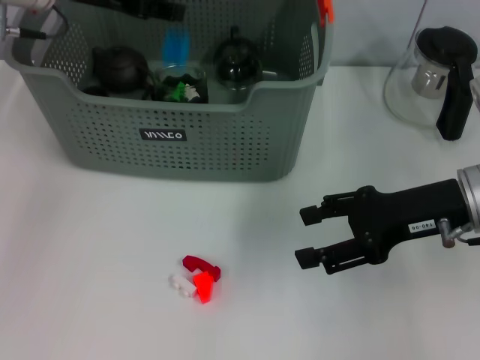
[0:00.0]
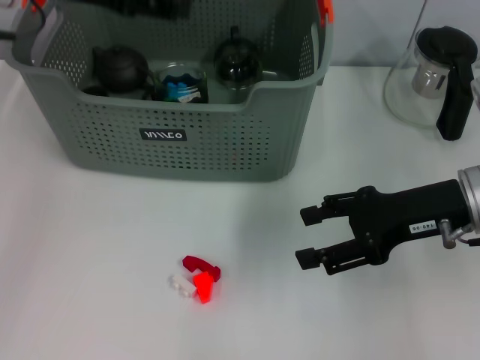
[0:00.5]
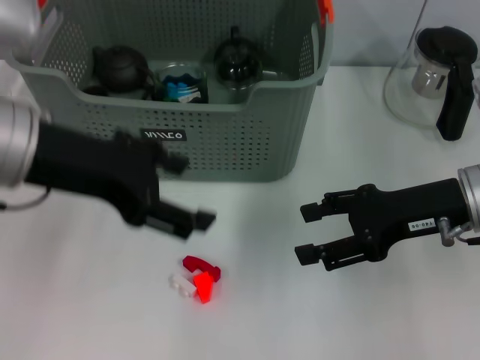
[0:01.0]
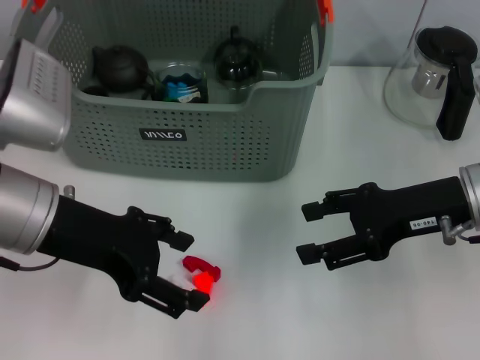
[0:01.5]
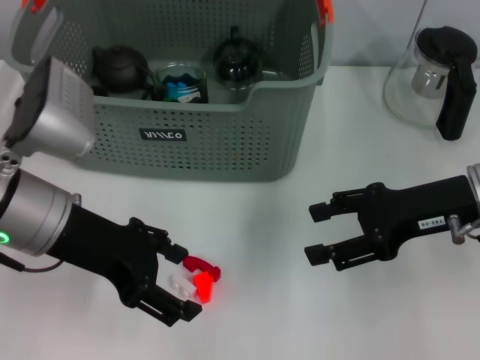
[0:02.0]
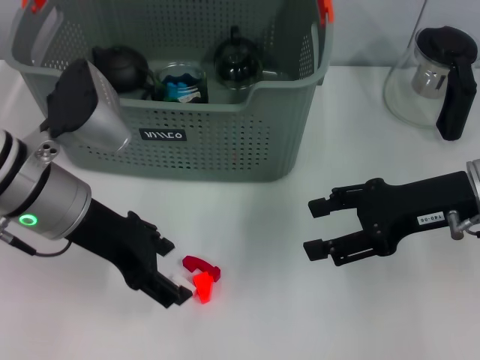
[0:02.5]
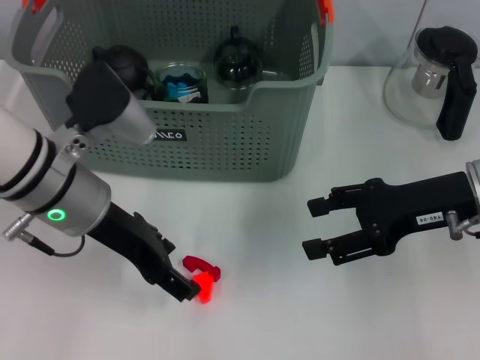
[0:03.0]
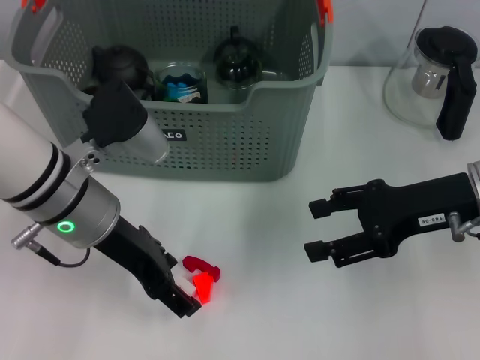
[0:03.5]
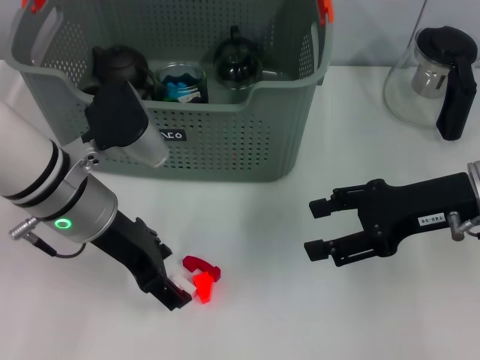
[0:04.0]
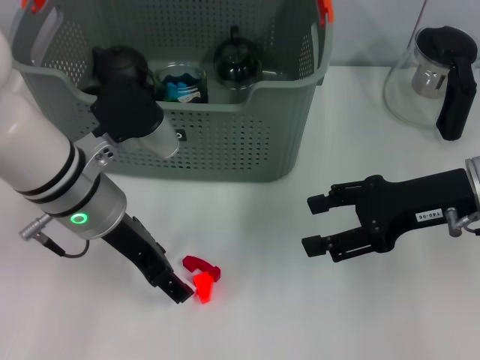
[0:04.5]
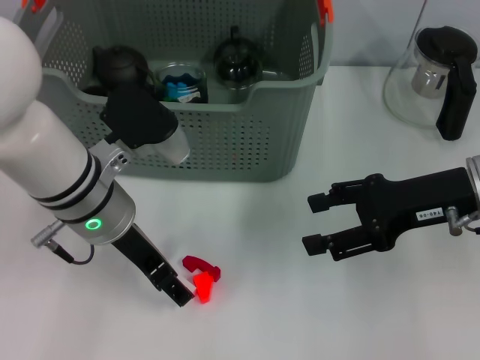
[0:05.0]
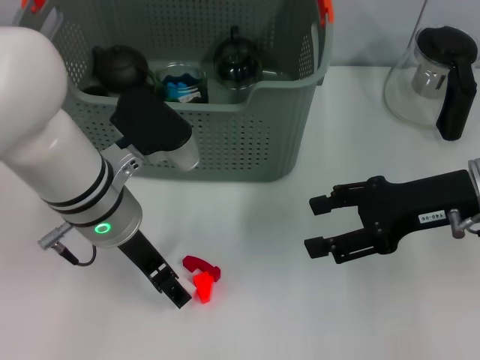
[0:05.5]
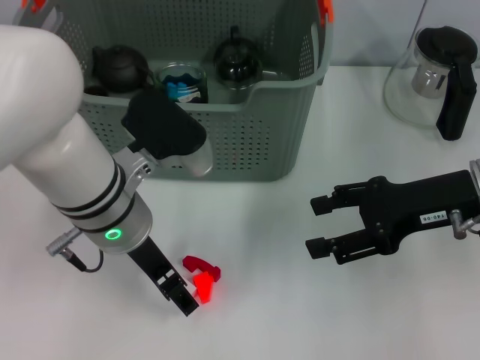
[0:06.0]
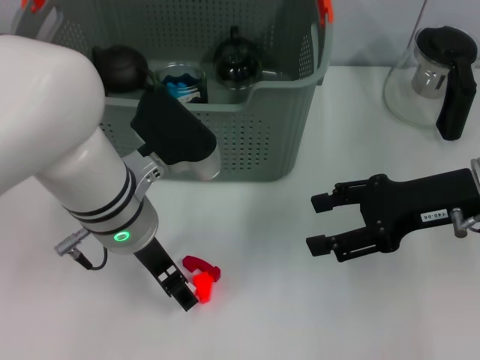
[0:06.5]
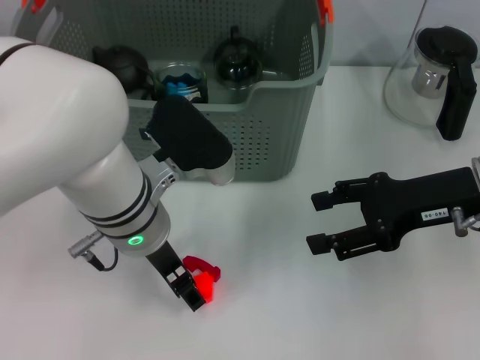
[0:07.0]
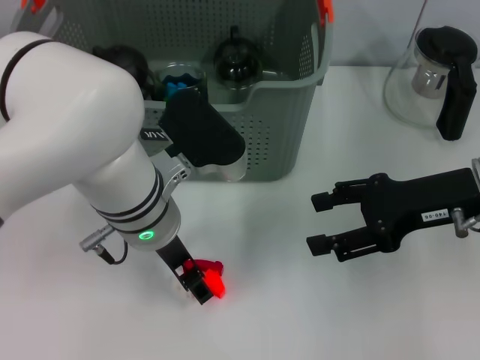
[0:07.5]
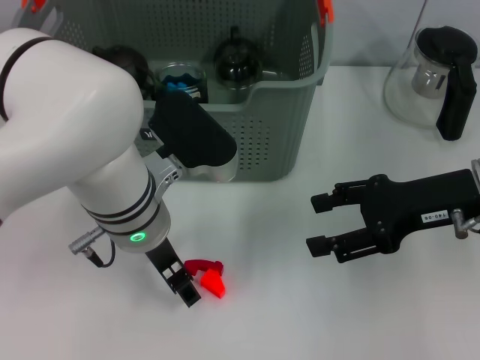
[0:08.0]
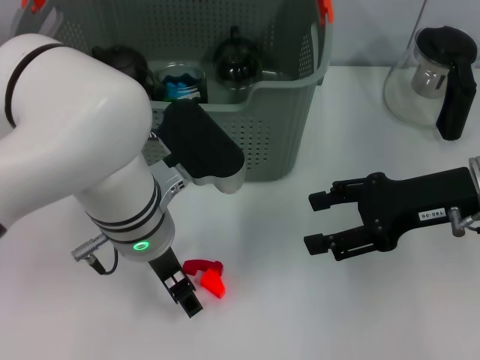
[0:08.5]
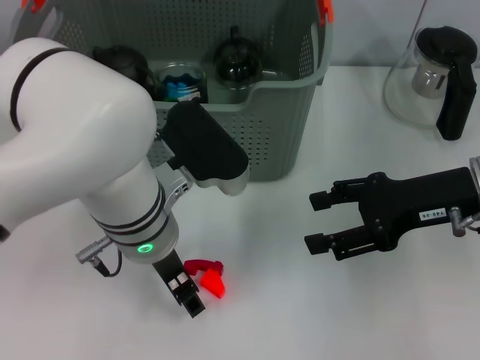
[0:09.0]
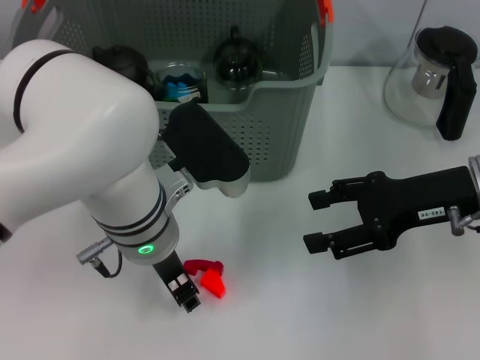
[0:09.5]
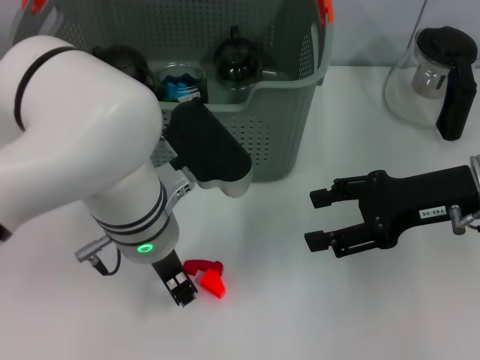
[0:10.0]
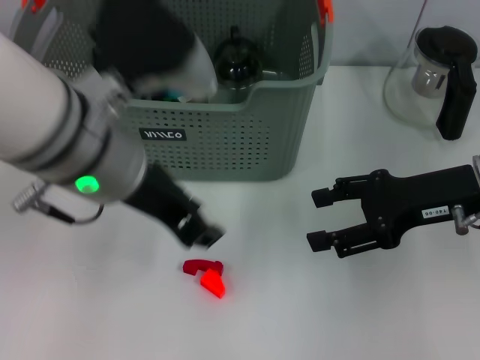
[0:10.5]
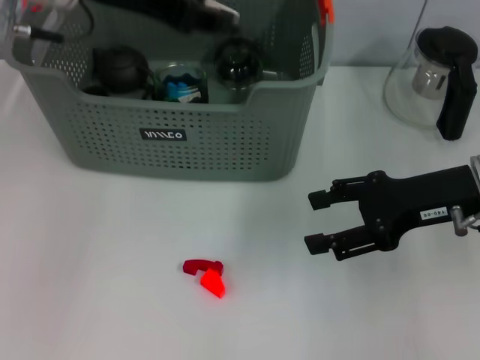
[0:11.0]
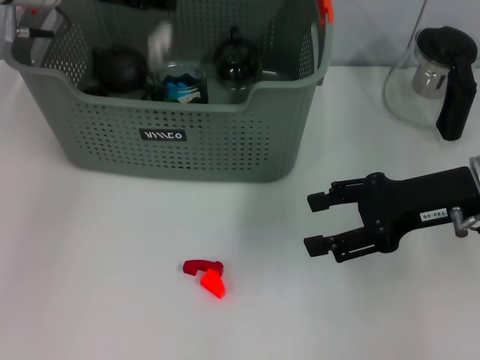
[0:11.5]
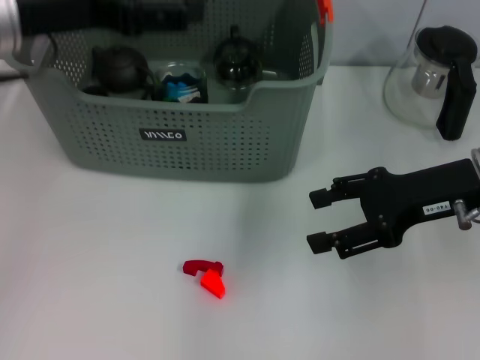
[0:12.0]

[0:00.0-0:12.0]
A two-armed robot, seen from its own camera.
Task of the whole recording: pick up the teacup on the table and place it into the storage bin, pick up the block on the table and place it into the storage bin.
Step, 0:00.5 to 0:09.5: Grasp the white block with left gripper.
Step, 0:10.0 to 0:11.5: Place the white block in the storage box with left gripper.
0:00.0 to 0:02.0: The left gripper shifts about 15 cm backward and downward, and opens.
0:02.0 to 0:04.0: The left gripper ends up about 5 cm from where it was.
0:04.0 to 0:06.0: There are only small adjustments of the grippers.
0:06.0 to 0:08.0: The grippers stay close to where they were, moving slightly.
0:08.0 to 0:10.0: The left gripper closes its fingers.
0:10.0 to 0:12.0: The left gripper travels to the left and upward by about 20 cm, and opens its fingers.

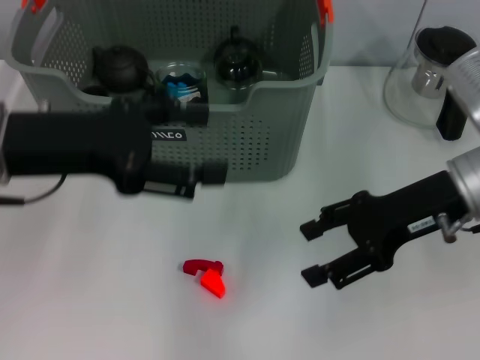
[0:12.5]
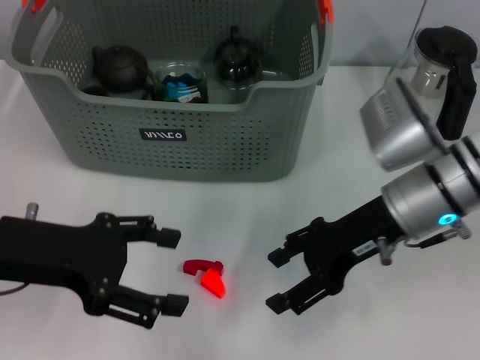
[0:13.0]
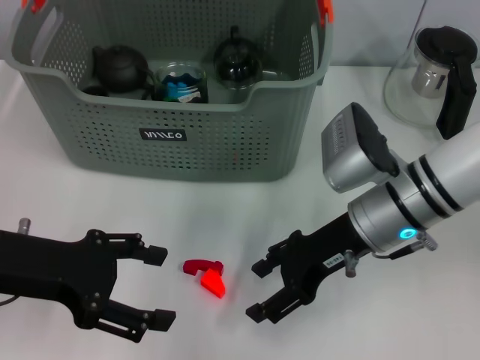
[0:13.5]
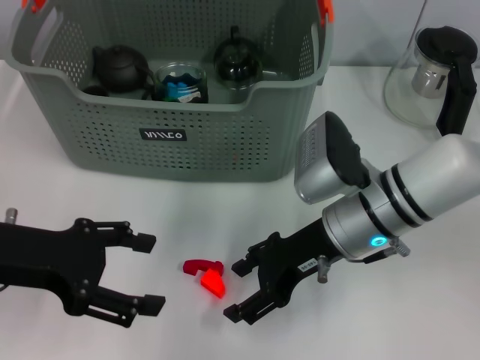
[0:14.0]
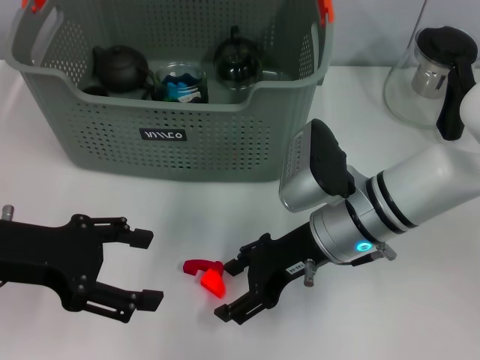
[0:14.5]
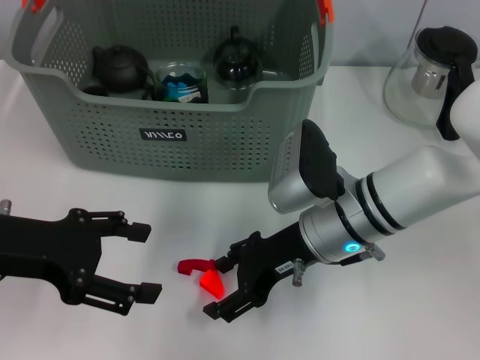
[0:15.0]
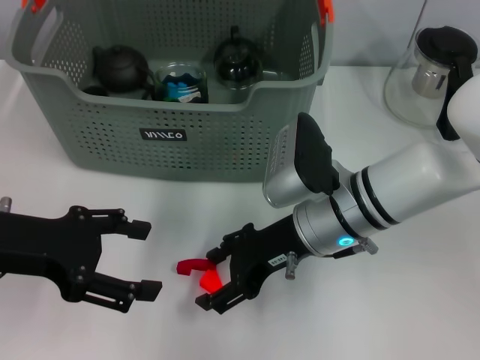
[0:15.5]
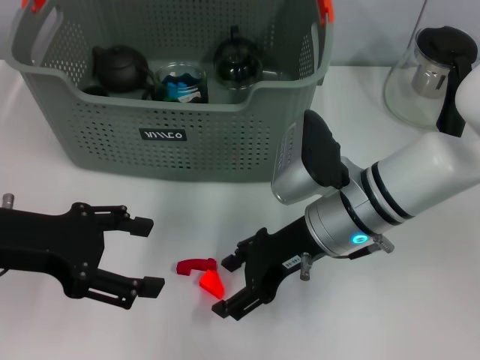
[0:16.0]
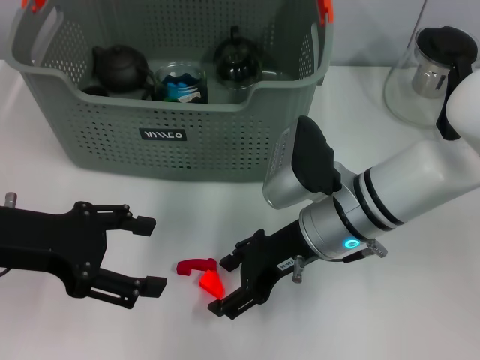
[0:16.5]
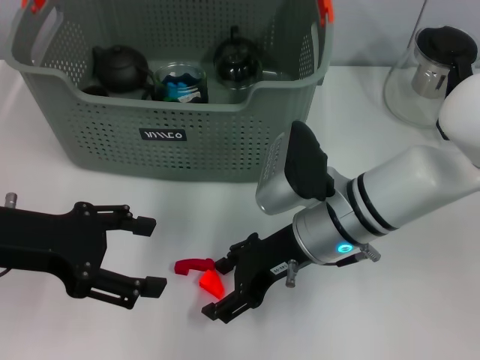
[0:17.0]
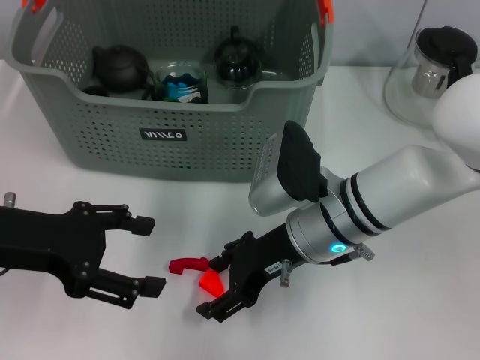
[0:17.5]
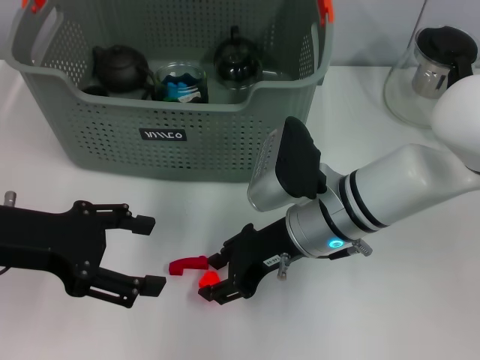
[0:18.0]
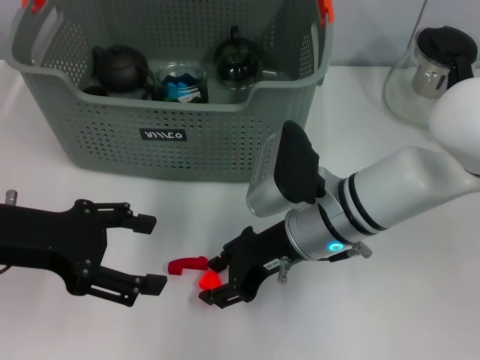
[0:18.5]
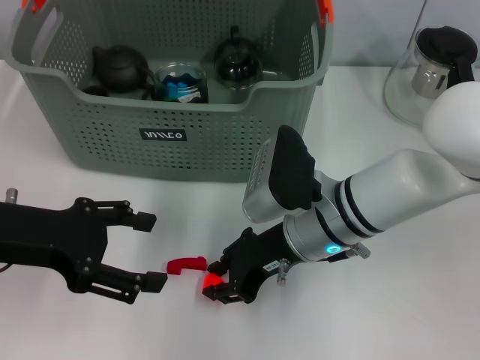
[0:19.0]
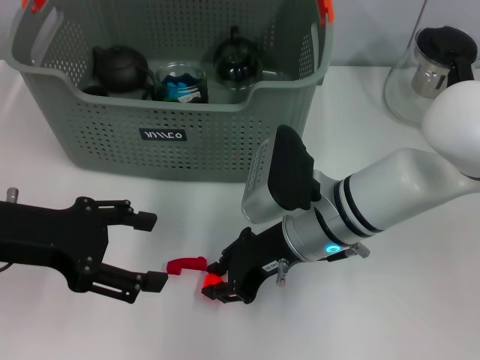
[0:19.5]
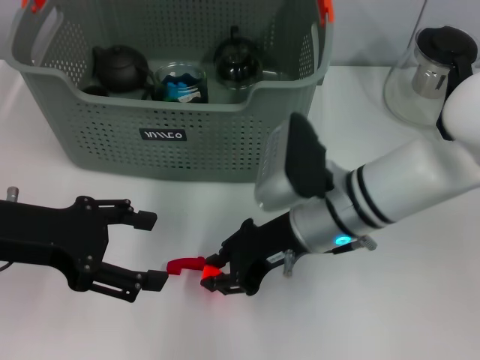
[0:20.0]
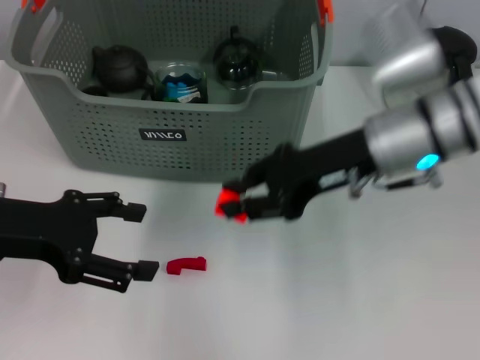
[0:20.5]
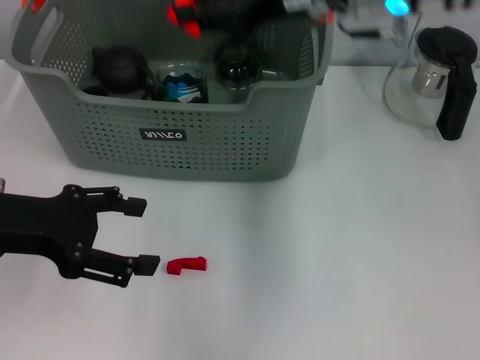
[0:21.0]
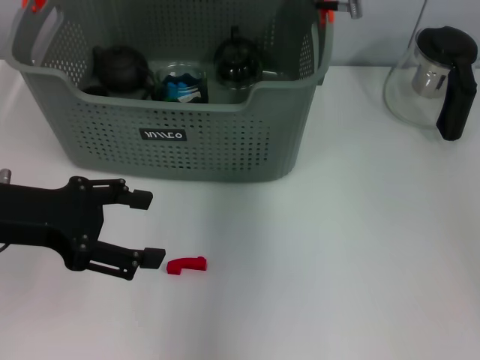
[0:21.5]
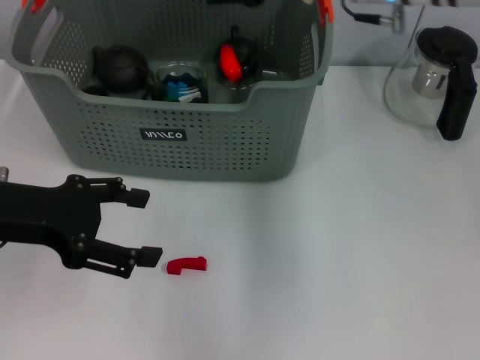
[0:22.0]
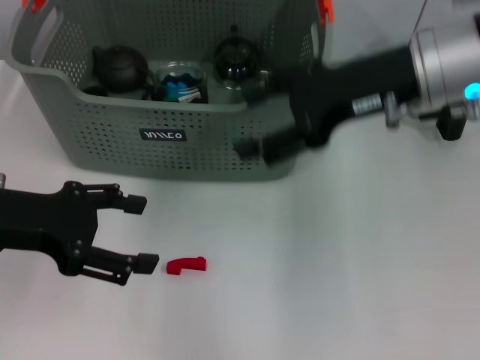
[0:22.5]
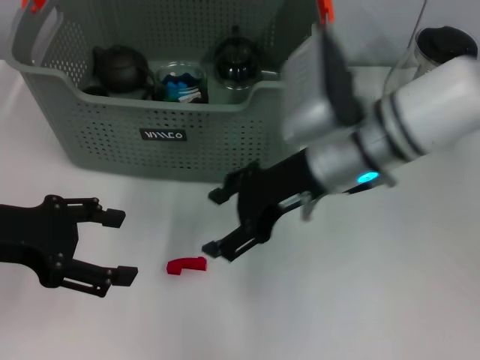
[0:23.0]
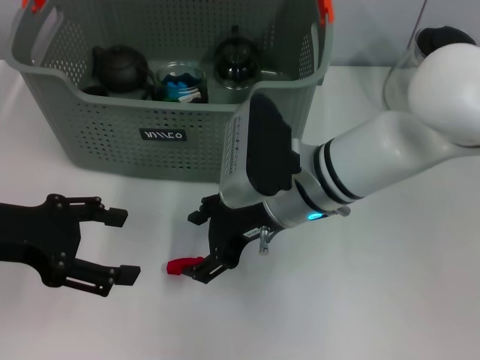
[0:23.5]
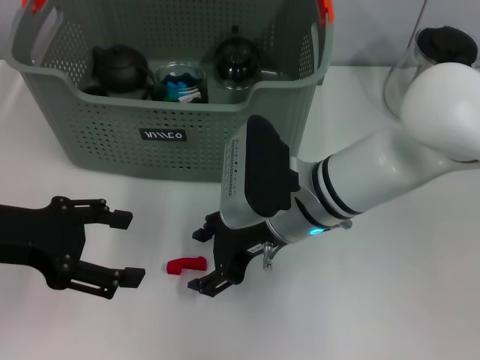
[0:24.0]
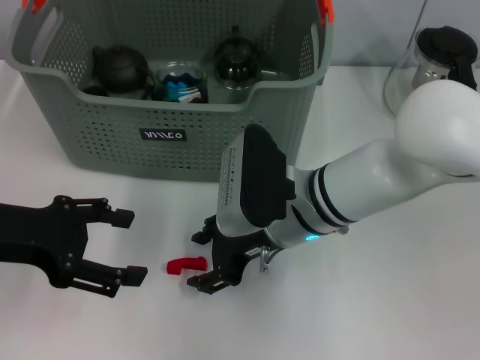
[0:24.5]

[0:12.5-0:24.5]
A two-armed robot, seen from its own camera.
Task of the whole recording: pick up the teacup on the table and place it into the storage bin, pick up the block on the table and place it into the storage bin.
Step, 0:12.5 to 0:19.0: Grasp the orange block with right gripper.
Step, 0:19.5 to 0:21.5: Place the orange block in the storage box with right gripper.
0:12.5 to 0:14.5: The right gripper moves to the left and downward, approximately 15 cm. The left gripper changes place by approximately 5 cm.
0:14.5 to 0:16.5: The grippers make only small movements.
0:16.5 to 0:18.5: Both grippers stay about where they are.
0:18.5 to 0:20.5: The right gripper heads upward and to the right, covering roughly 10 cm.
0:20.5 to 0:22.5: The right gripper shifts roughly 5 cm upward, goes forward and returns, approximately 10 cm each way, and opens up.
0:22.5 to 0:24.5: The right gripper is displaced downward and to the left by roughly 20 cm.

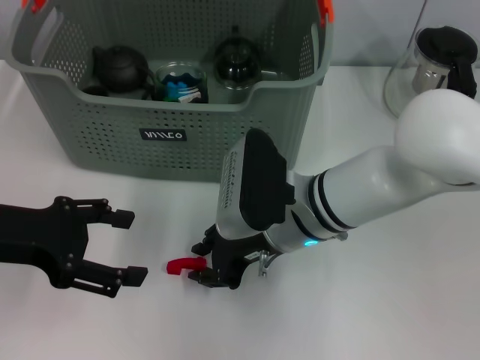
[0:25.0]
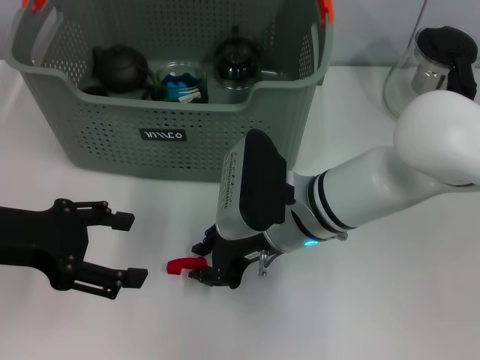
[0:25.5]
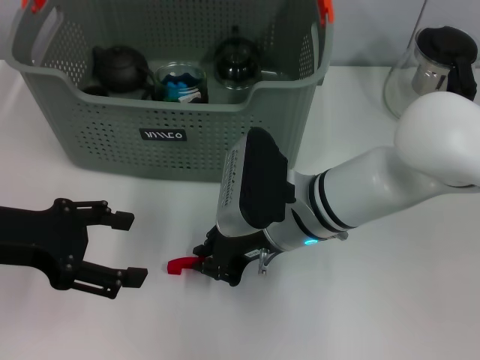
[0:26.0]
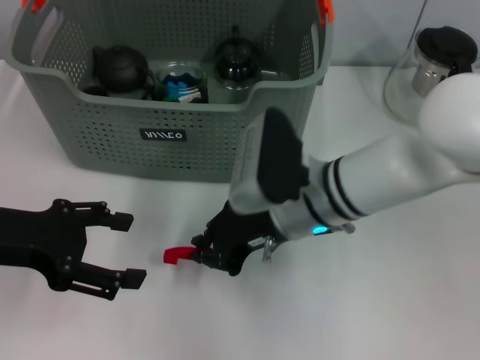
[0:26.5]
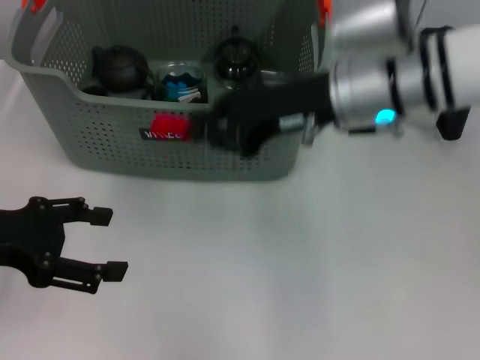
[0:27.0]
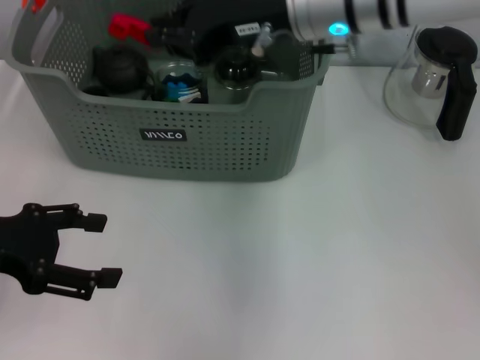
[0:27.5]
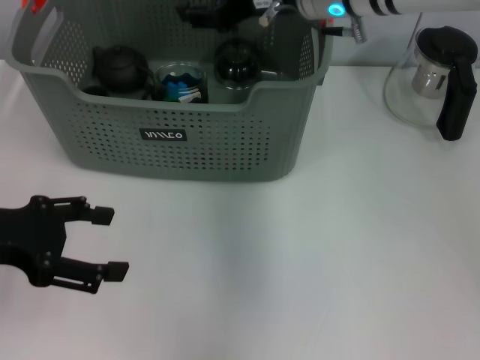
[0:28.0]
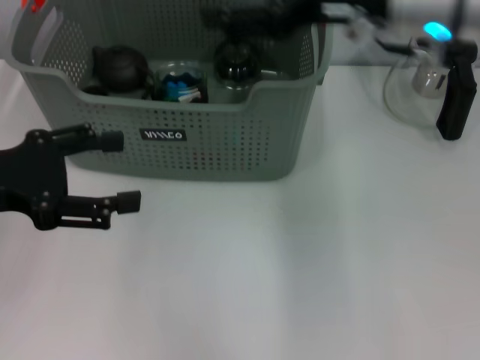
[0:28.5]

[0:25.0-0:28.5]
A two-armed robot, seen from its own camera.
Task of the whole recording: pick up the teacup on the table and place it into the storage bin, pick up the block on the table and place it into the storage bin.
Step, 0:26.5 to 0:28.0: Place the red block in the storage box with right gripper.
0:25.0 to 0:27.0: The right gripper goes roughly 15 cm upward and to the right, and closes.
0:27.0 to 0:28.5: The right gripper ends up roughly 5 cm from where it was, and opens.
